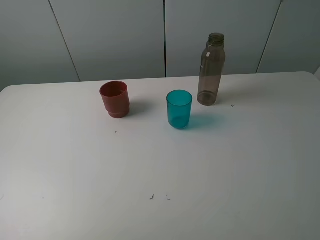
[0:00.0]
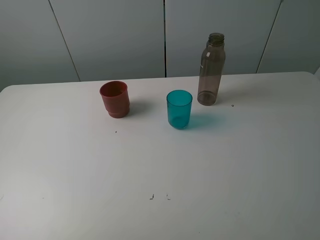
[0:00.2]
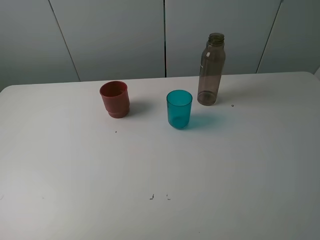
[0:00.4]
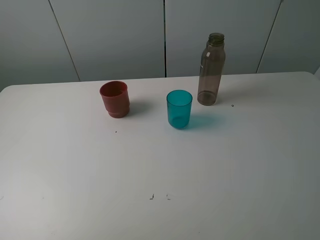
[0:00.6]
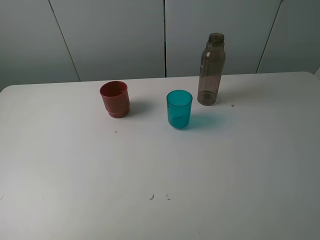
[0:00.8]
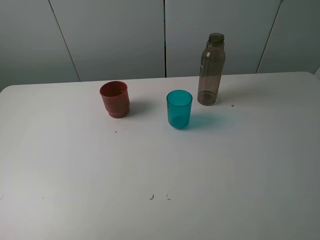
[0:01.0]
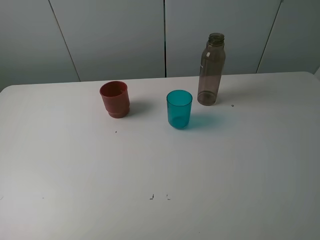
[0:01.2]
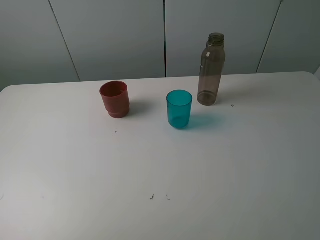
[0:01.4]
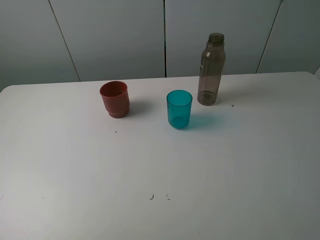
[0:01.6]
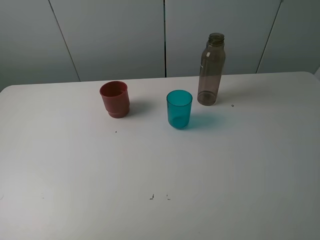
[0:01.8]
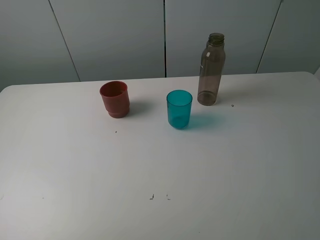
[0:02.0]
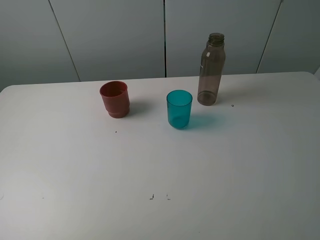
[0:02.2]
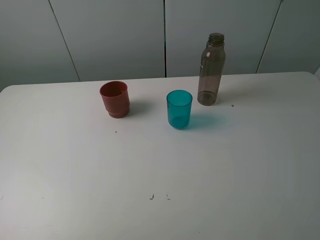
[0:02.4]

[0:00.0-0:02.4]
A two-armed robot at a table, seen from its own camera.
Task of the whole recording: pick up the bottle and pour water into the cup, then pick up the cup containing water and pour it into another cup.
1.2 to 2.4 s: The two grippers keep their place.

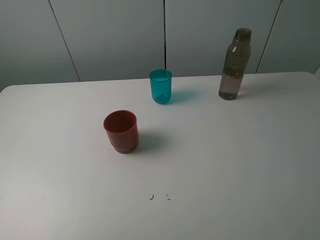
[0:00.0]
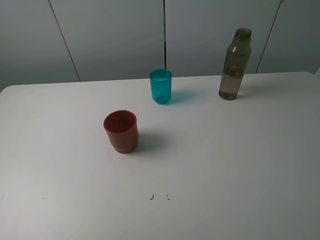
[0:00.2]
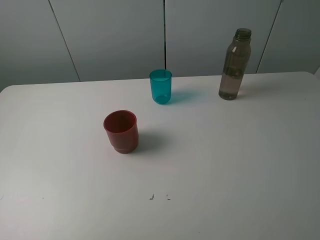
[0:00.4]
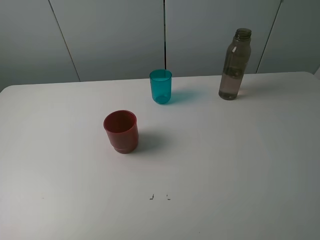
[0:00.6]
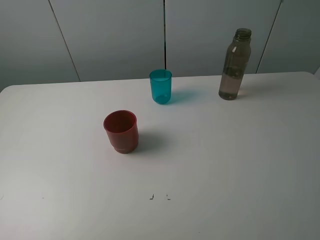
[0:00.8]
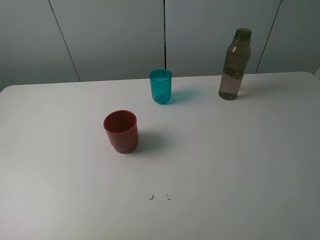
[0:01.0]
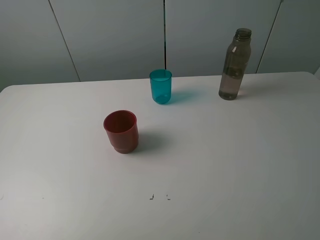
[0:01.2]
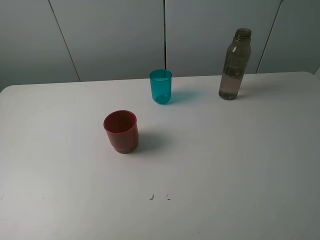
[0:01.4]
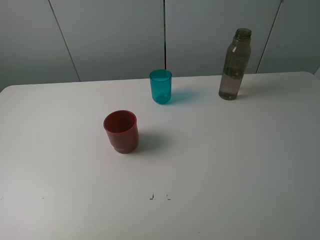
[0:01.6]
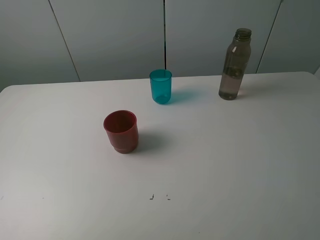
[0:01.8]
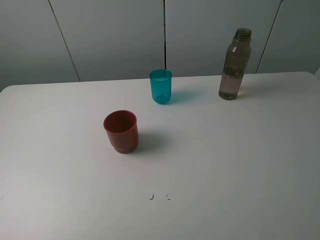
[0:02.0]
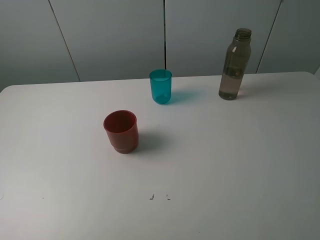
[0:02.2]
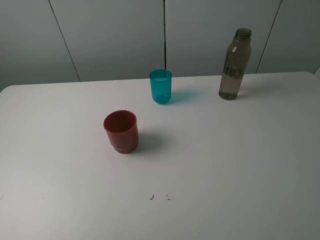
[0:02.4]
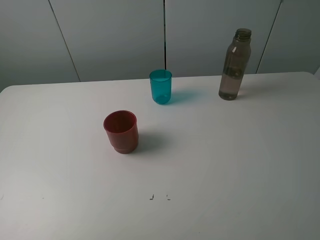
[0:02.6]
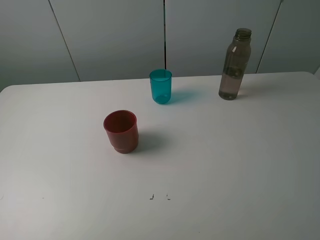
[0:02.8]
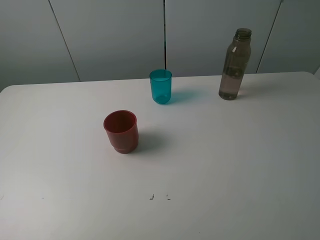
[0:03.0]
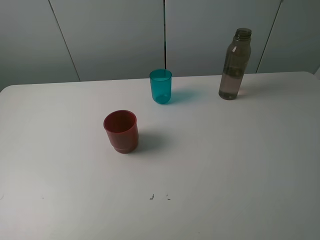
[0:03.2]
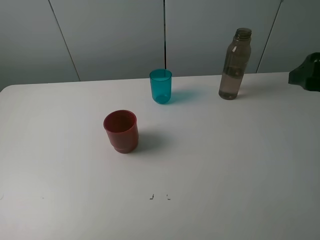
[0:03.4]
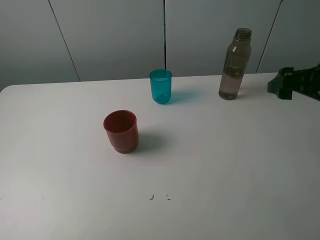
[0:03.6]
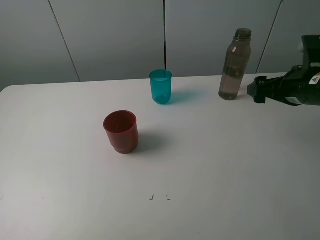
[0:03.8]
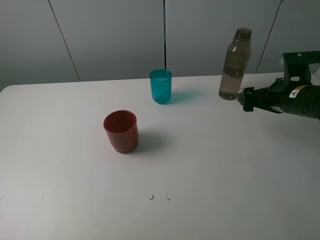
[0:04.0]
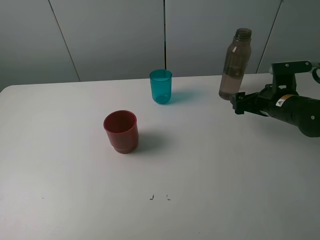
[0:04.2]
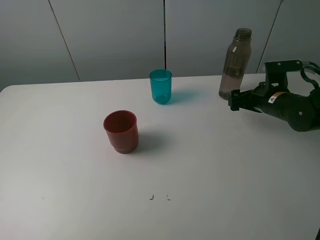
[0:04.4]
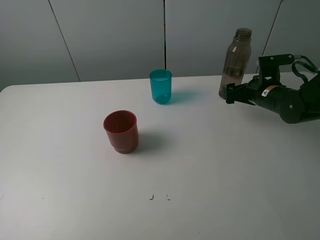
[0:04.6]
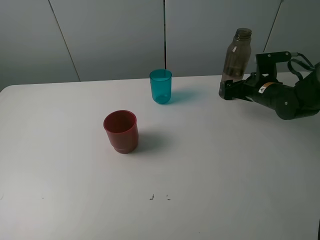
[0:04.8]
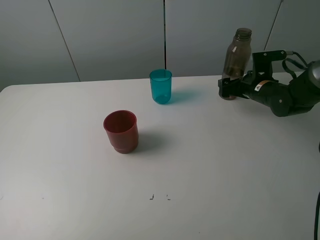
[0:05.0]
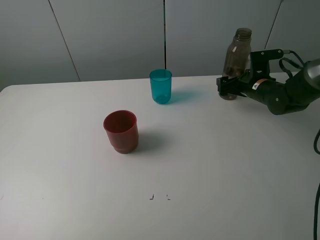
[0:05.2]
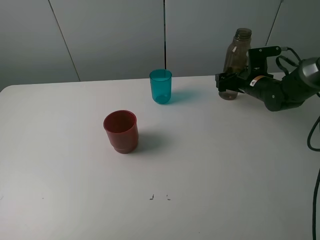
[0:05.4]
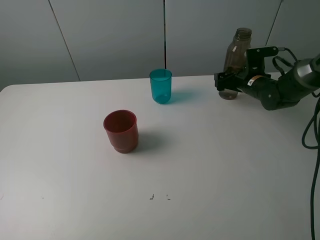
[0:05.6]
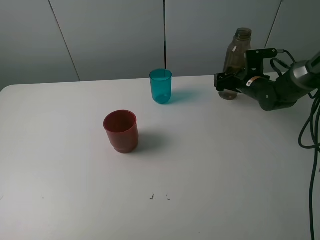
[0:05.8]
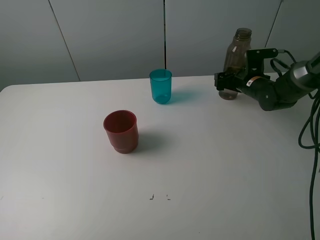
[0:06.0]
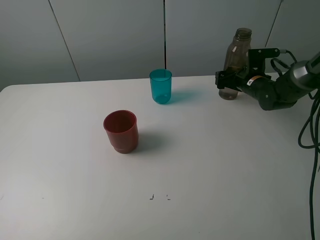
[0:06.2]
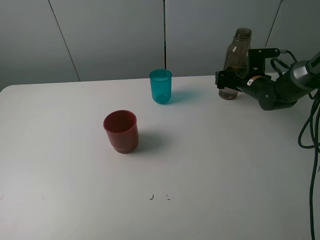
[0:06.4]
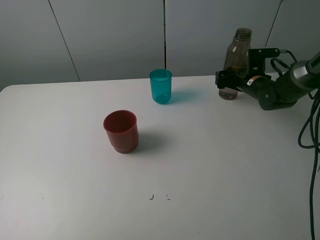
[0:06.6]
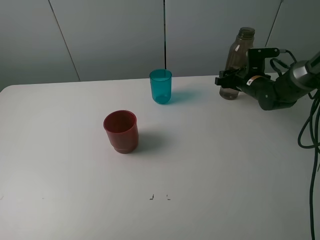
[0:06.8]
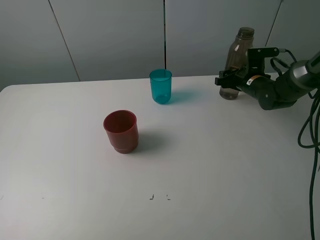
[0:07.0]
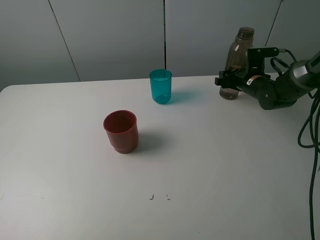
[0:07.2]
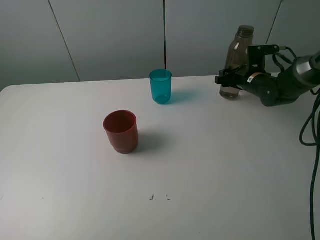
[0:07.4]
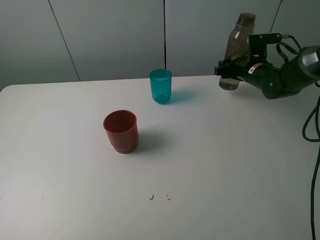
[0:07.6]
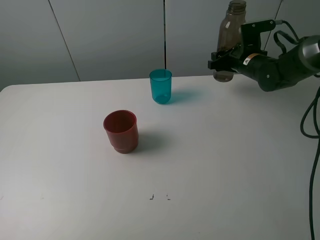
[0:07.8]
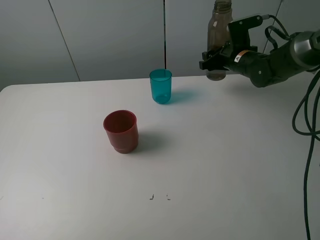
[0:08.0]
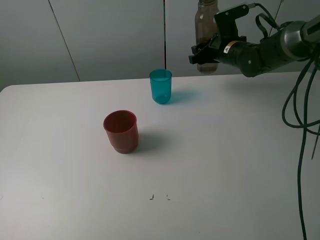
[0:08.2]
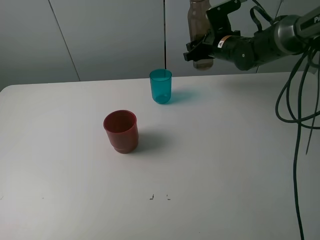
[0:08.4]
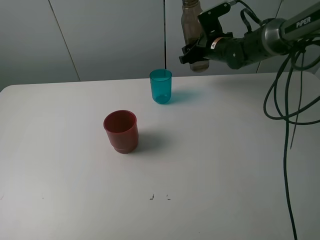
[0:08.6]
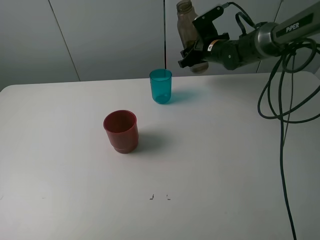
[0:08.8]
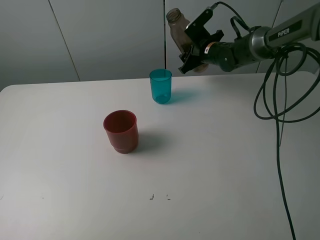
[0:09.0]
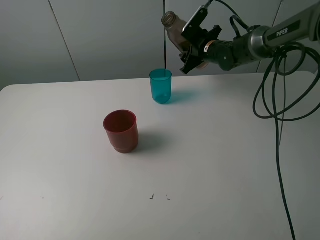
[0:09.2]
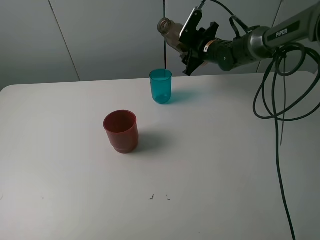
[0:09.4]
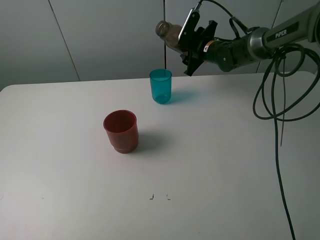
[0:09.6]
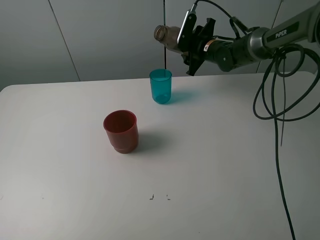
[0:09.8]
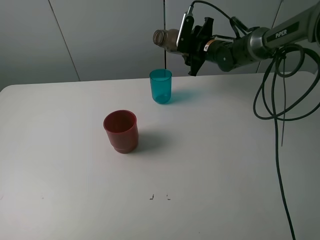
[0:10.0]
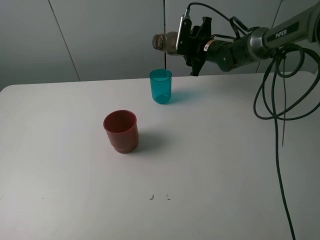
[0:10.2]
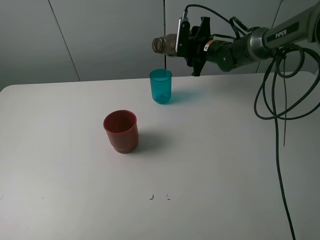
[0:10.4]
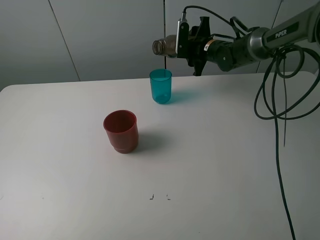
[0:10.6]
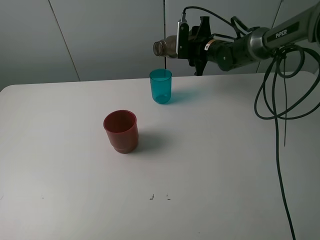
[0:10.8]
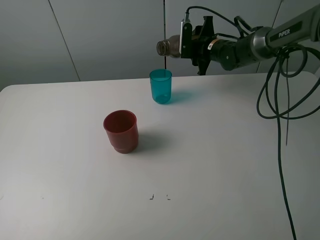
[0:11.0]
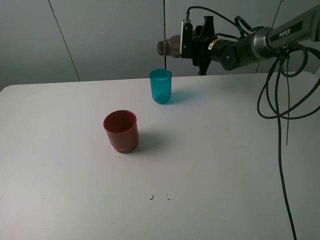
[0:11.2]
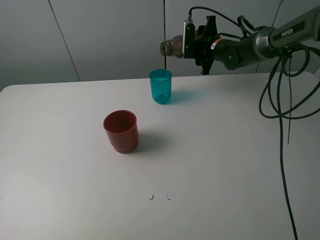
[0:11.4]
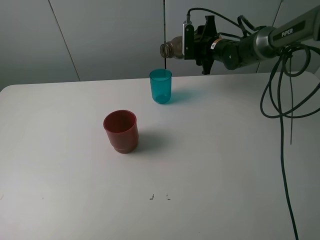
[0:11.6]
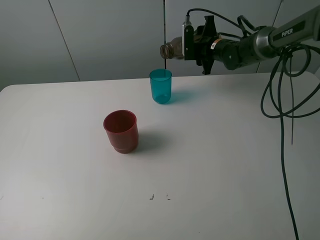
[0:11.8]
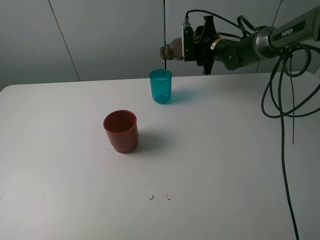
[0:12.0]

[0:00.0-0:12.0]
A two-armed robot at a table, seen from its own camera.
Task of the whole recording: pick up the bottle and pour water into the cup, then pick up the cup containing water and pour it into another cup.
Step, 0.0 to 6.8 s: Grasp the brown bottle with the right gripper.
0.0 to 1.6 s: The two grippers keep their place.
3.0 to 4.4 s: The right gripper goes approximately 35 cm downward and forward.
4.4 to 6.0 s: The right gripper heads forward, covering some 10 cm.
6.0 to 7.6 s: The right gripper closes its fingers.
7.6 to 9.0 s: The right gripper goes roughly 10 cm to the left and forward.
10.4 to 12.0 s: The grippers move only a little.

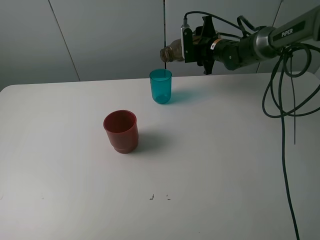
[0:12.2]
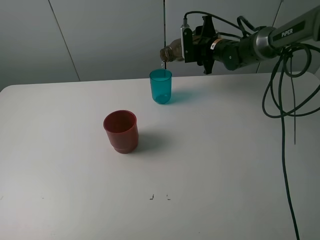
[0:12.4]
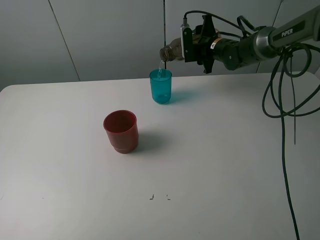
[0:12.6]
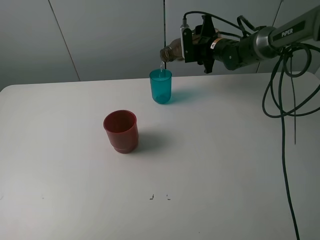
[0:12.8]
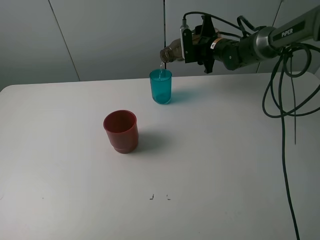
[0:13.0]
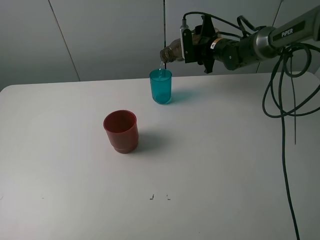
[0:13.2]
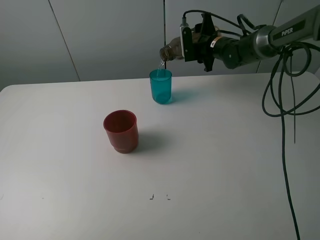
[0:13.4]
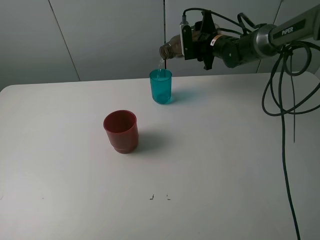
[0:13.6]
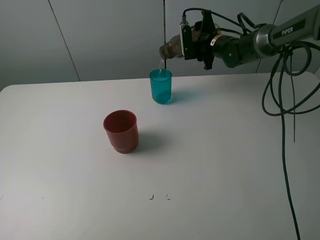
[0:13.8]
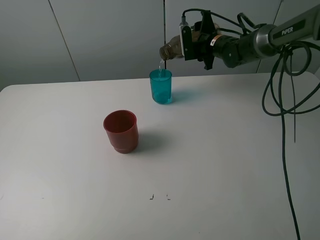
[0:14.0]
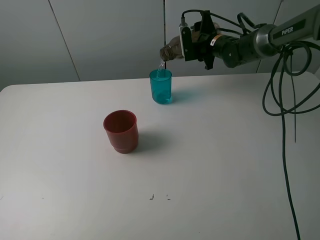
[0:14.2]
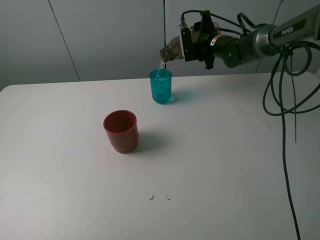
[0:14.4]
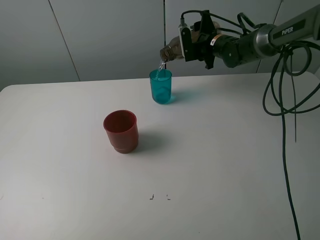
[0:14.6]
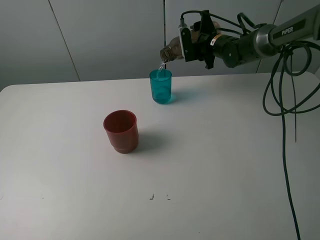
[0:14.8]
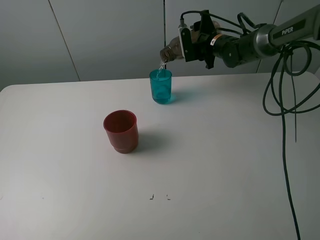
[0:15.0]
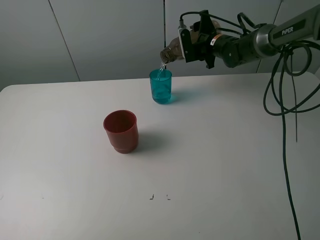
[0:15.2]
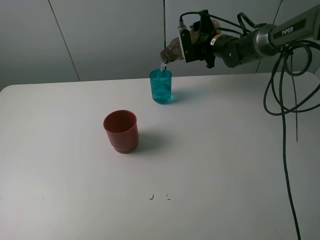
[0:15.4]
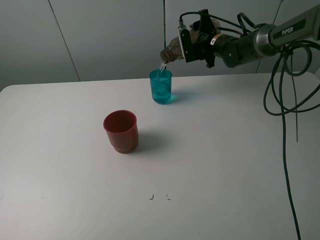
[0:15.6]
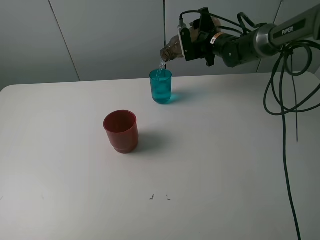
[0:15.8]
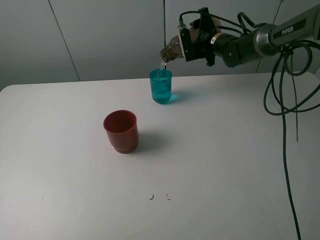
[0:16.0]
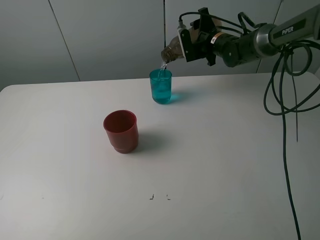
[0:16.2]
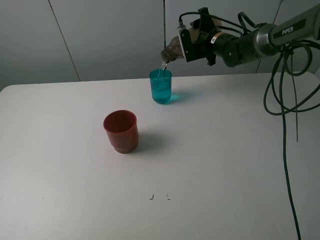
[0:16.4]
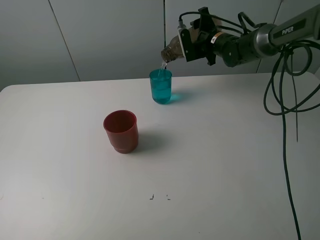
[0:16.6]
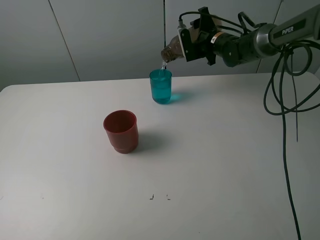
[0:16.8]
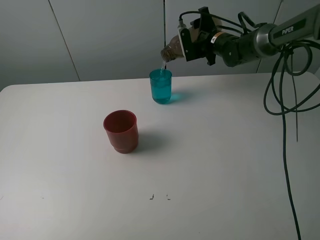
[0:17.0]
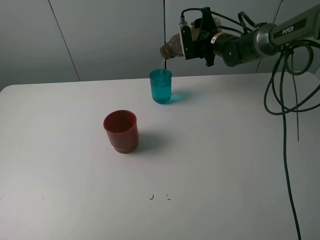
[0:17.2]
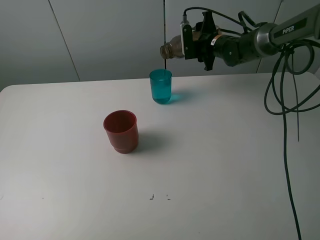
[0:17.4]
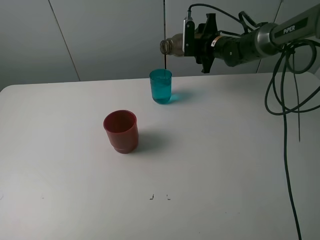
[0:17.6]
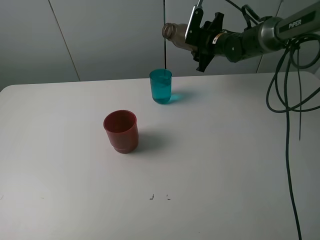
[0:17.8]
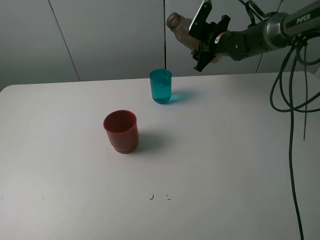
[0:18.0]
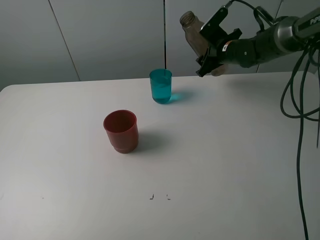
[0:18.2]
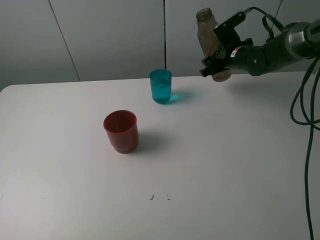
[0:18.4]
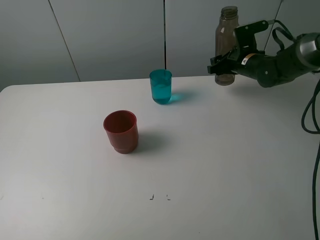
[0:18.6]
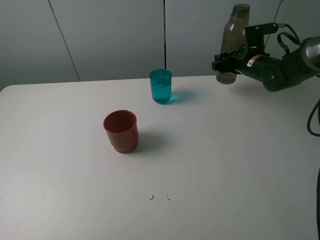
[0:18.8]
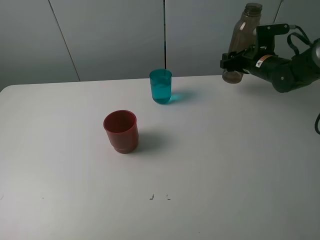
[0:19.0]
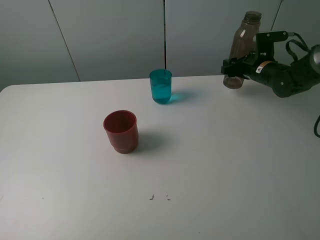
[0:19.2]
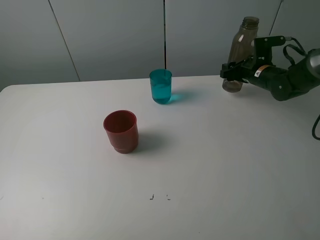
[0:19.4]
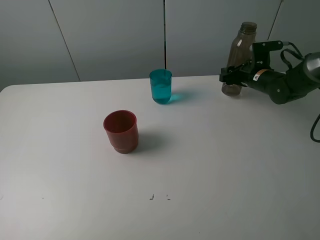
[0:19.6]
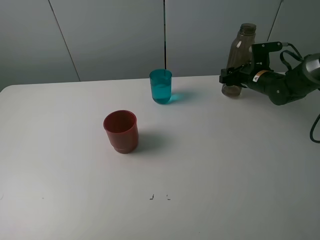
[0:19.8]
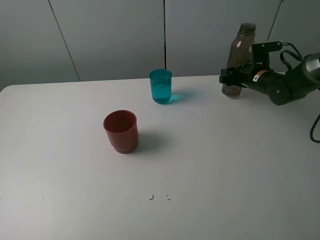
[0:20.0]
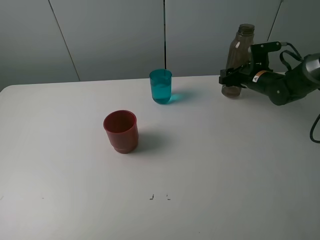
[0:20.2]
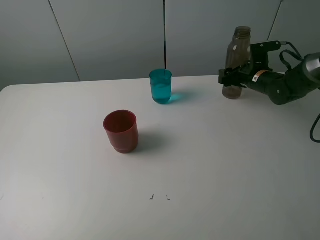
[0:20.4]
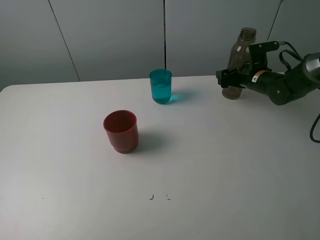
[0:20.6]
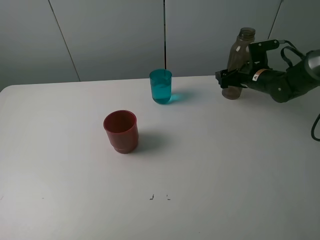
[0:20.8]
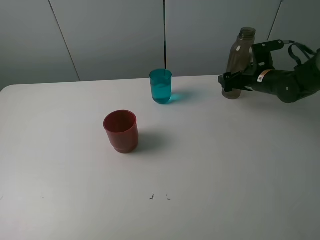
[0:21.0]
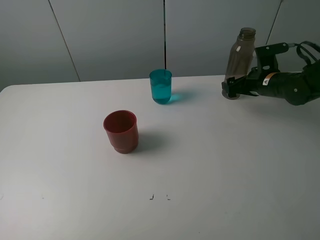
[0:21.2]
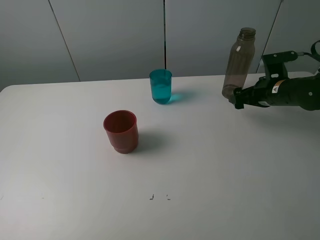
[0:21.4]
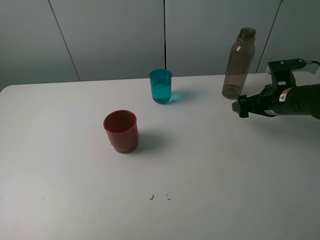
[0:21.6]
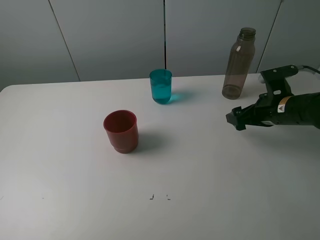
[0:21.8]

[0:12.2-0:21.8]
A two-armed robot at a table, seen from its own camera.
Task of the whole recording: pick up the bottle and pour water into the cup, then pick up the cup containing water and pour it into another cup.
Step, 12.2 to 17.6 s: Pour water from brown bottle to blue cup with the right gripper.
Step, 17.8 to 20.8 s: Place the brown bottle with the right gripper.
12.2 to 13.8 s: The two grippers keep their place.
13.8 to 15.4 s: The grippers move only a little.
15.4 to 17.0 s: Both grippers stay about where they are.
17.0 to 18.6 s: The right gripper shifts roughly 10 cm backward and to the right.
18.6 to 20.2 s: The right gripper ends up about 5 cm from where it was.
20.2 to 21.8 s: The right gripper is displaced backward by about 15 cm, and opens up.
